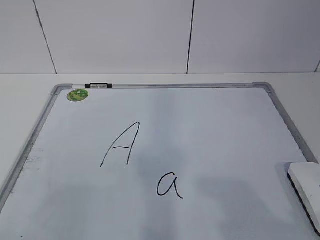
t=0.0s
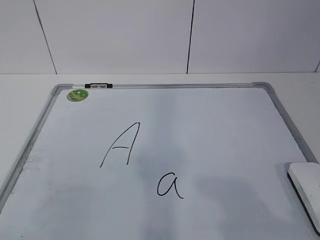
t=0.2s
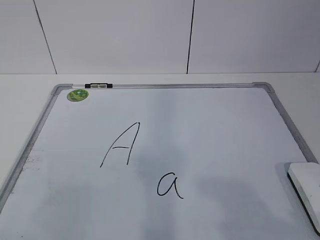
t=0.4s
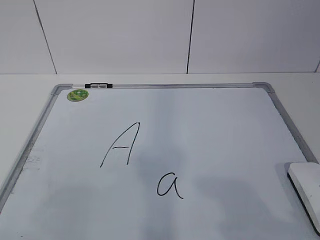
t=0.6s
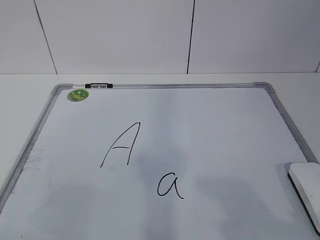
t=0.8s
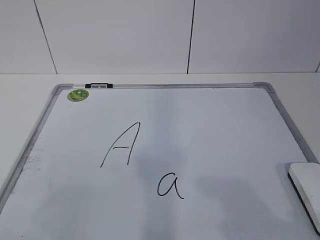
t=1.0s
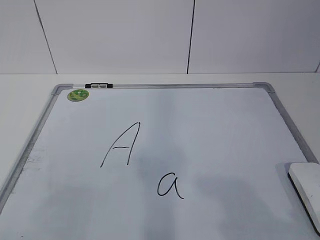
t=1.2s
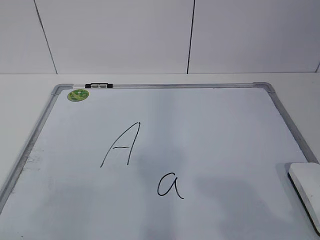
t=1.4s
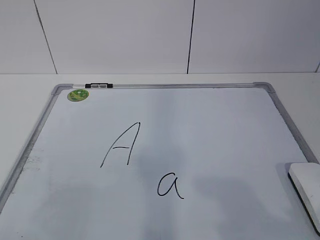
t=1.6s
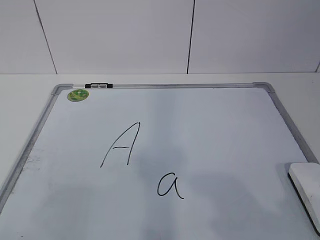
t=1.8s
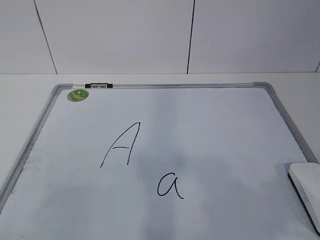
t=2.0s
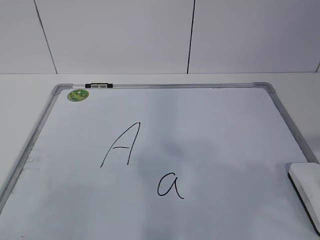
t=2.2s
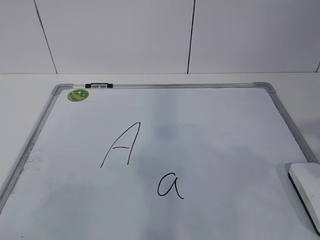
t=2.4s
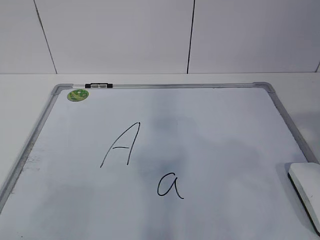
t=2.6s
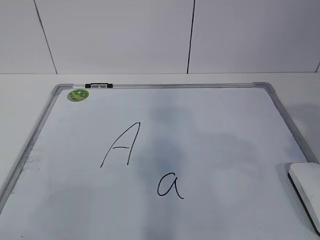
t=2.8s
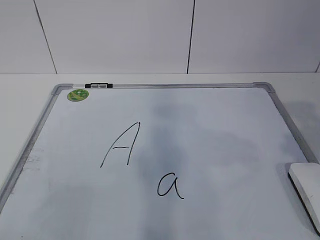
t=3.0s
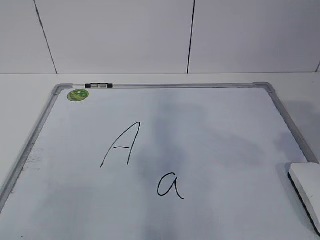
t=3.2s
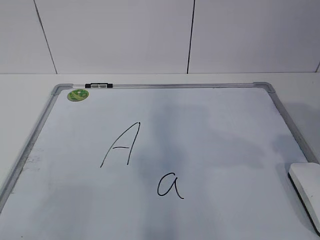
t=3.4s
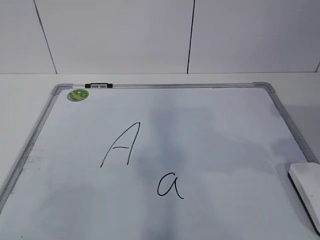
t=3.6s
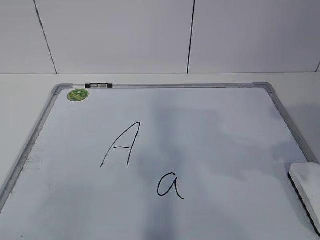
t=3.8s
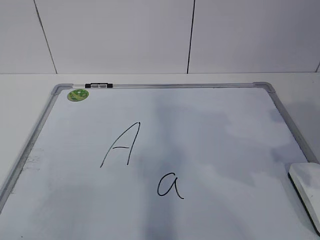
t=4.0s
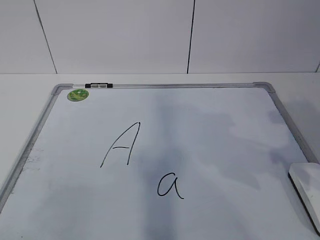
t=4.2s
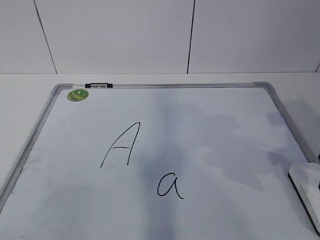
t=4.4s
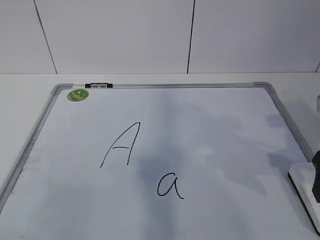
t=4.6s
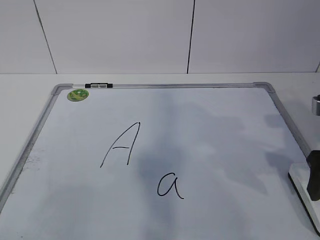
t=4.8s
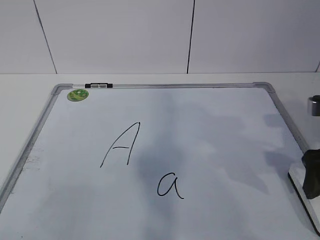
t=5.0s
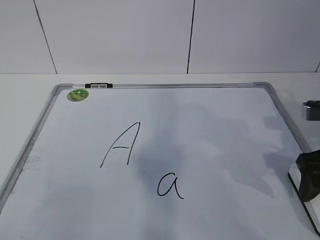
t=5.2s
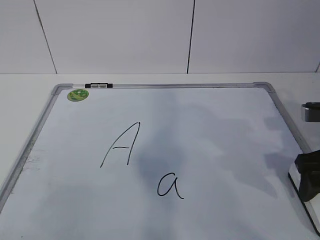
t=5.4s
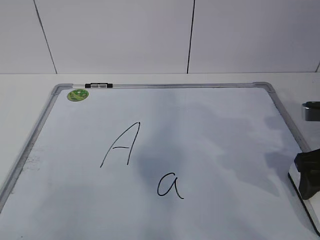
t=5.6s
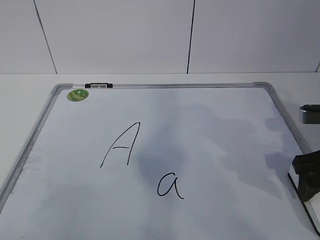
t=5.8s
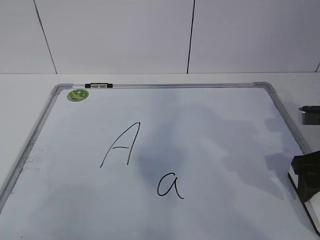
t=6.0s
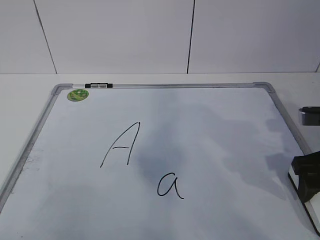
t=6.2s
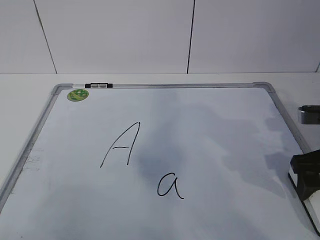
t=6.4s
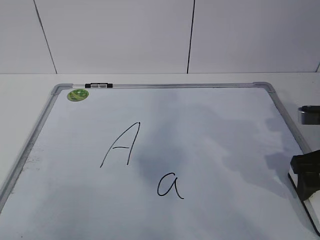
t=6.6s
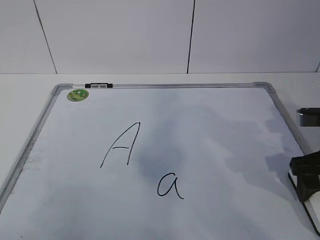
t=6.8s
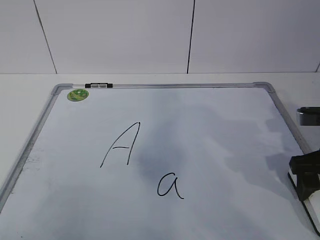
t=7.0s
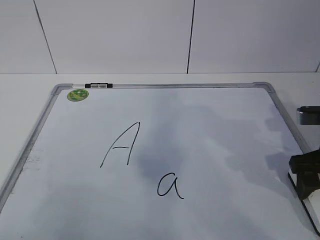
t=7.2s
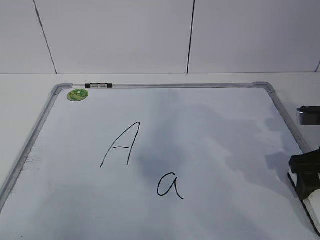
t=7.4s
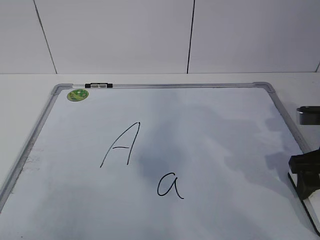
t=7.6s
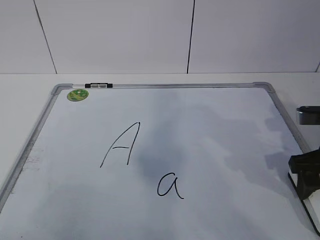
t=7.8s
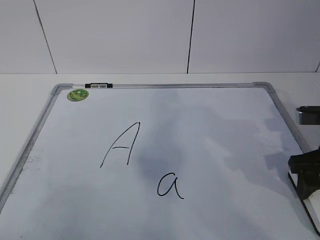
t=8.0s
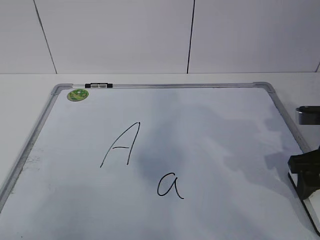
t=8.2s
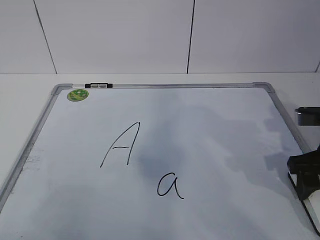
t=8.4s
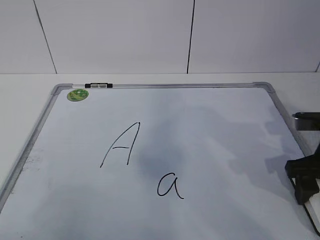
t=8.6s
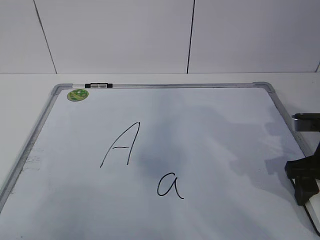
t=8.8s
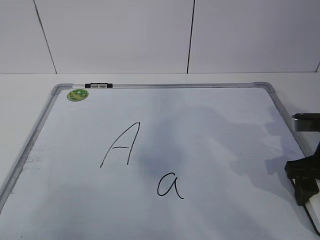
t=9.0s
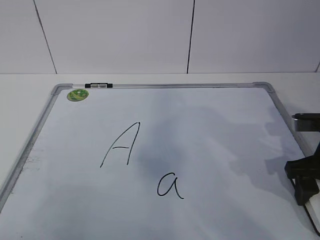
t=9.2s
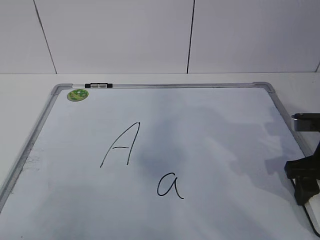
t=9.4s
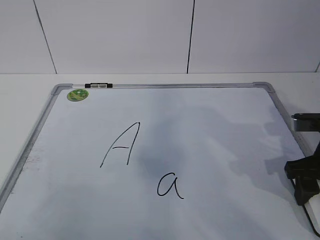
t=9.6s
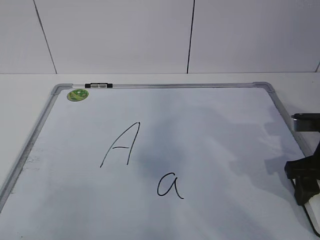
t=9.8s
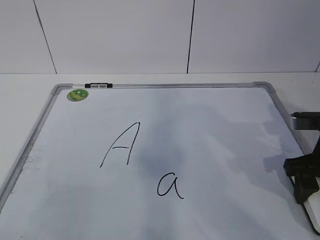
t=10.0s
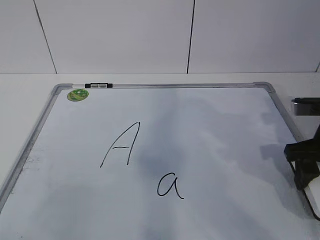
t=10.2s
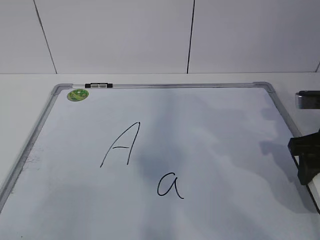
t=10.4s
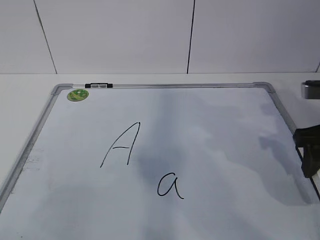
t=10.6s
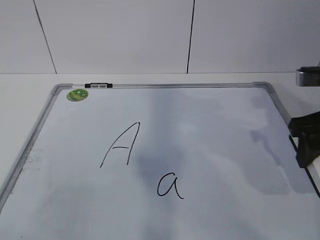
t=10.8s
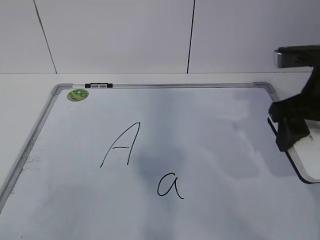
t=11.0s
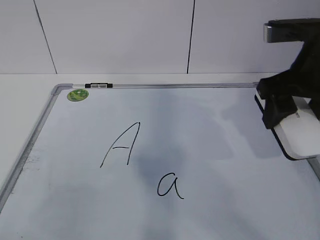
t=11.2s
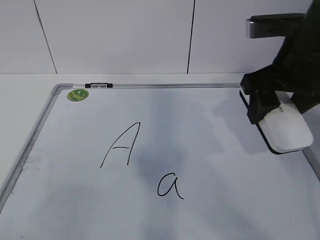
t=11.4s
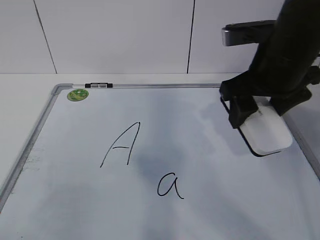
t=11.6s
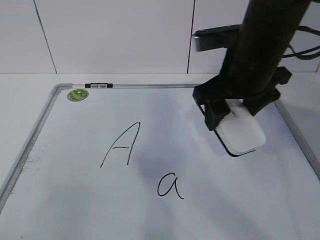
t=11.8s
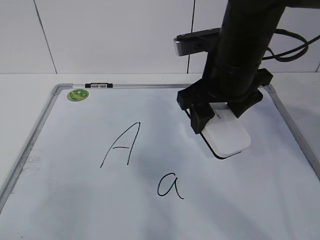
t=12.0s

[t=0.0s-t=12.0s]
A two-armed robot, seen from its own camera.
Task of the whole recording: pick up the eraser on the blackboard and erase the letter "a".
t=4.4s to t=6.0s: The right gripper travels downward by some 5 cm, and opens its fingers.
t=6.0s to t=7.6s: The two grippers keep their place.
t=7.6s to t=9.0s: Both grippers stay about where they are.
t=9.0s to t=10.4s: The grippers move only a little.
t=10.4s to t=12.0s: The right gripper moves to the left and upward, some 20 cm.

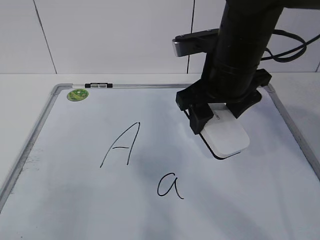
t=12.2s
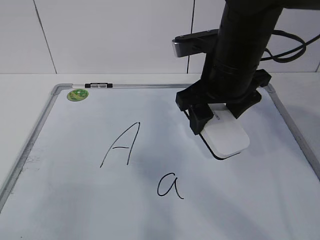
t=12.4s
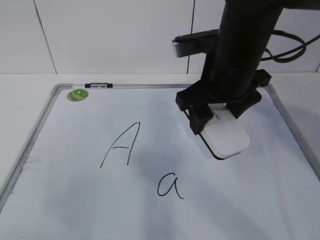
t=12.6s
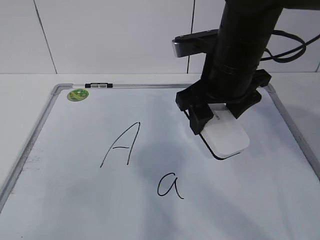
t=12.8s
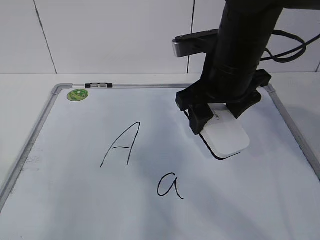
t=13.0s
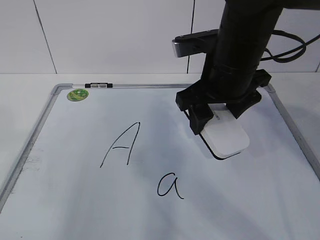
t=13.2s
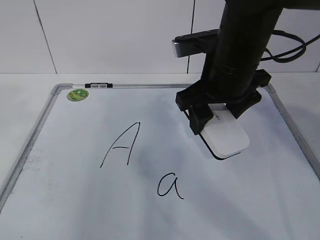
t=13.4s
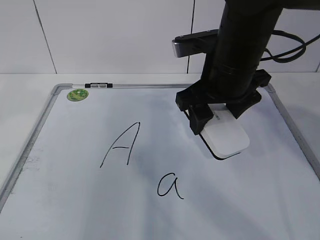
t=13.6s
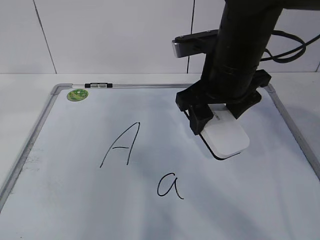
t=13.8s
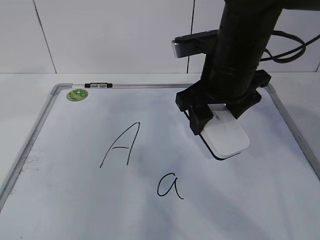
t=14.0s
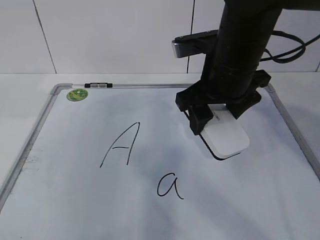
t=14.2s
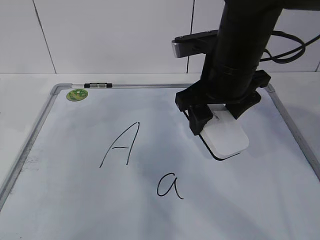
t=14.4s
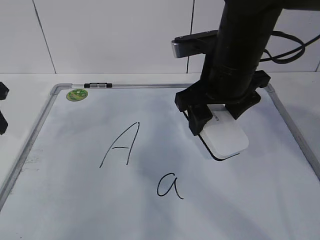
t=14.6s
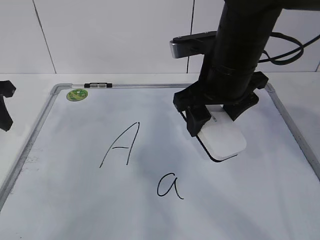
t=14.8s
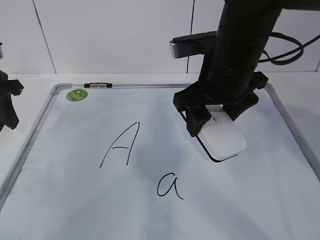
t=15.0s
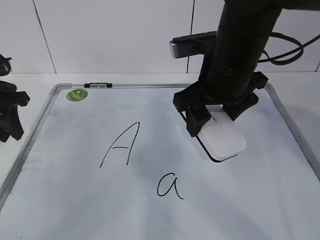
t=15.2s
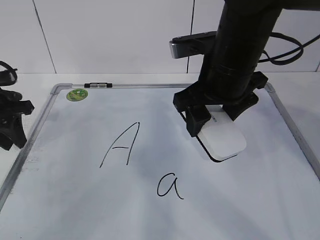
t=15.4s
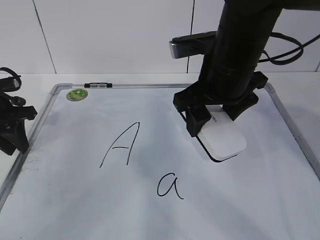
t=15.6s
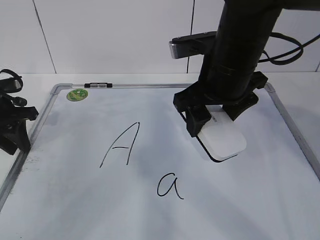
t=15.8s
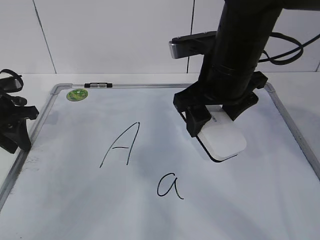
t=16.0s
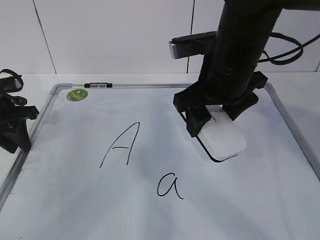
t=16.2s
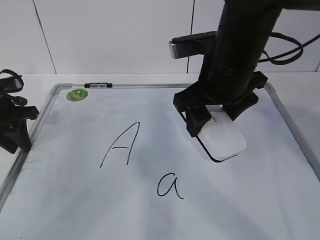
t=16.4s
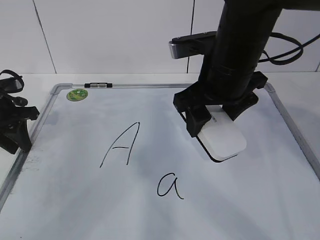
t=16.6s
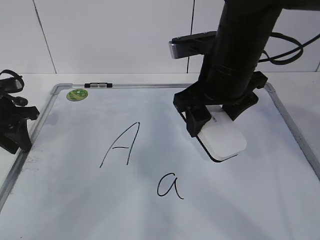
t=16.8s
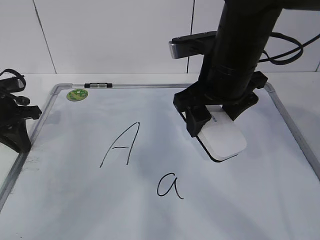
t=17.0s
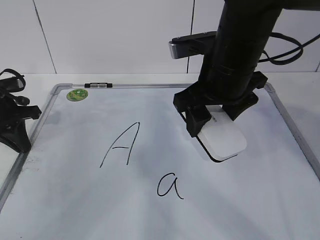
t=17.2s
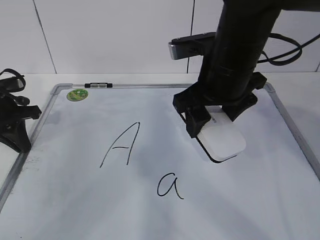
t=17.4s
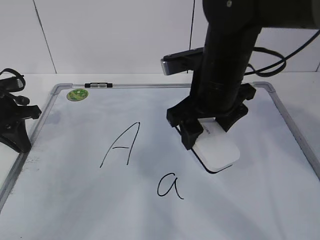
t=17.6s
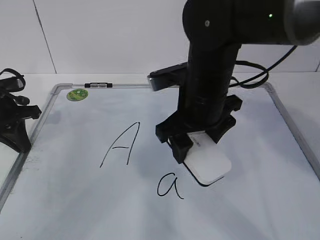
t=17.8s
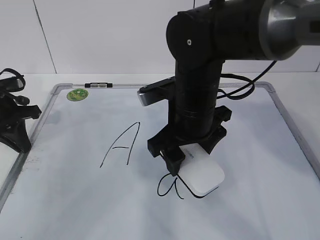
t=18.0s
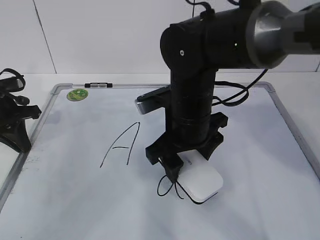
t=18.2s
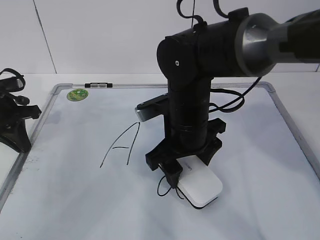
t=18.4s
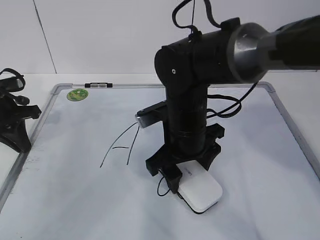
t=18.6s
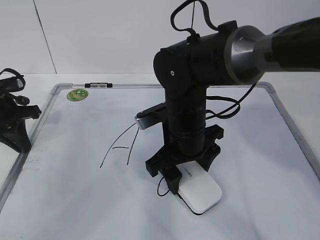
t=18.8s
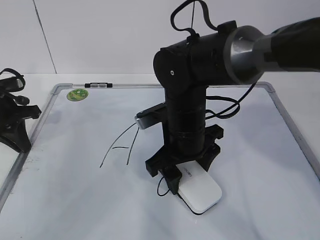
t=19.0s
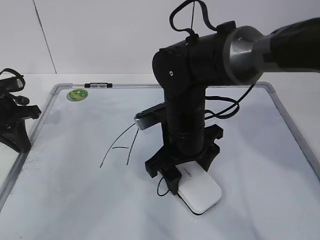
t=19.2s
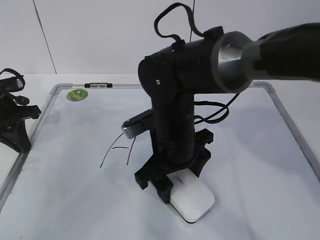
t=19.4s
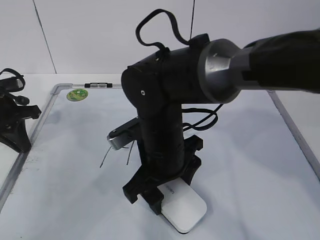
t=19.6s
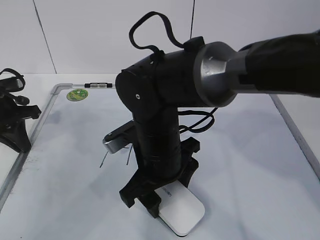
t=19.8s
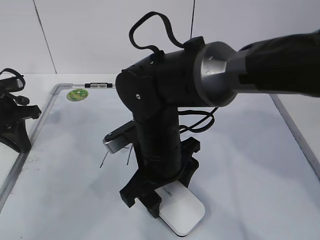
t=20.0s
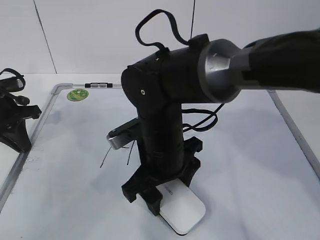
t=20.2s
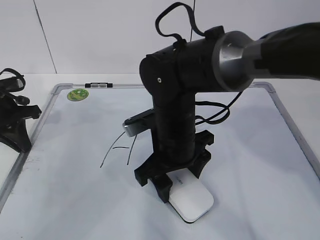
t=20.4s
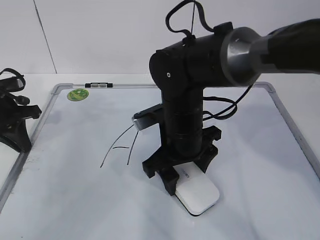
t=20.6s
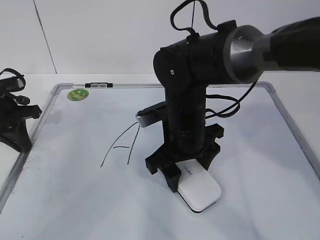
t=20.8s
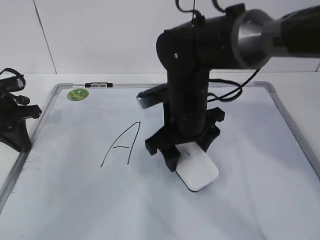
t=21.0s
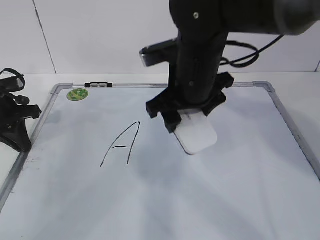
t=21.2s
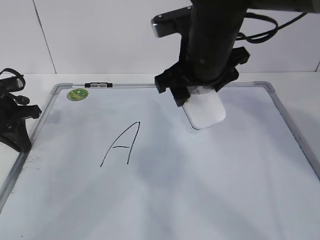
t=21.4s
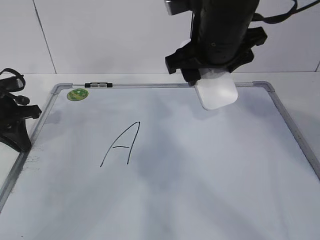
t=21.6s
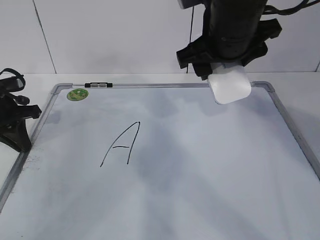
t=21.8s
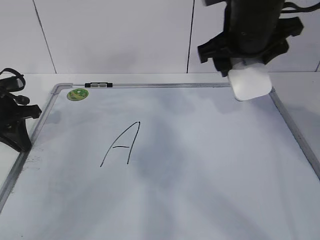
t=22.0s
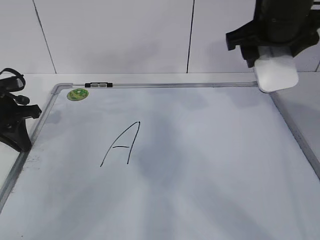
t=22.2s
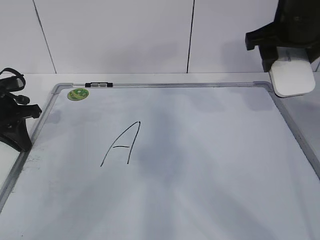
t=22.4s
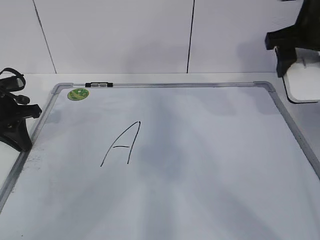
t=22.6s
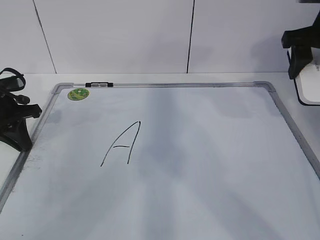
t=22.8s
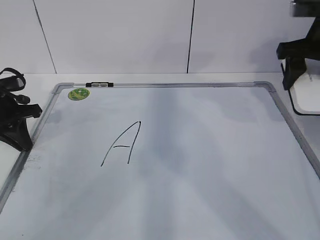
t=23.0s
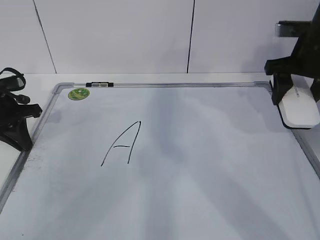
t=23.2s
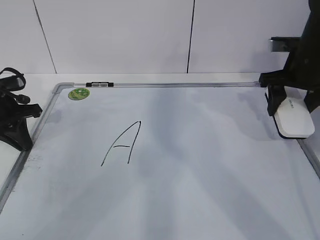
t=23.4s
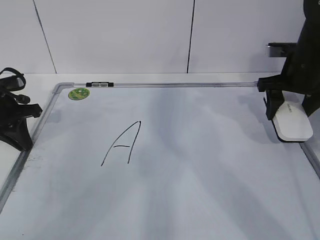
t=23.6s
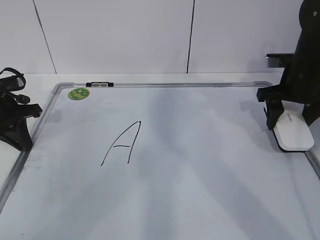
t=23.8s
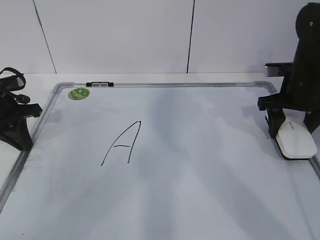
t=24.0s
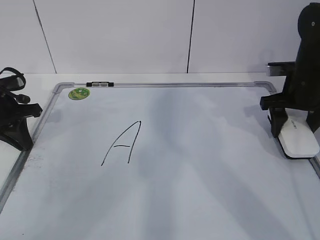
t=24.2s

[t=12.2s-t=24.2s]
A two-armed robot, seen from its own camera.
Task of the whole recording: pick up the eraser on the blackboard and erase the letter "a".
Step, t=17.4s to t=21.8s: Put down the eraser with your right hand.
t=12.2s to t=13.8s: The left gripper moves forward and upward, roughly 20 cm.
t=13.8s to t=15.2s: The left gripper heads downward and forward, covering about 25 cm.
t=15.2s to t=16.6s: The grippers make only small movements.
t=16.6s to t=18.2s: The left gripper closes its fingers. The right gripper is displaced downward by some 5 cm.
t=18.2s to t=19.8s: The right gripper changes place by roughly 5 cm.
t=19.8s to t=21.2s: The right gripper travels upward, forward and to the right by some 10 cm.
t=21.2s to t=22.6s: The right gripper moves to the right, approximately 20 cm.
t=22.6s to t=24.2s: The right gripper is displaced downward by approximately 15 cm.
